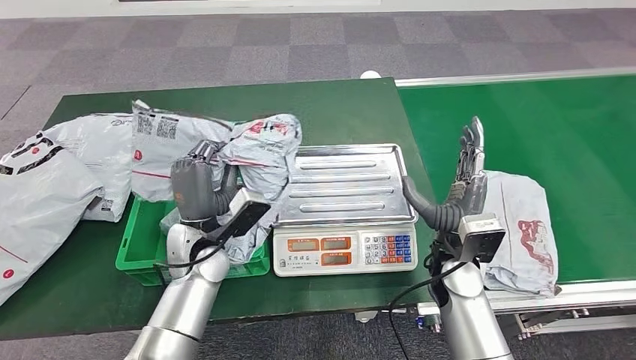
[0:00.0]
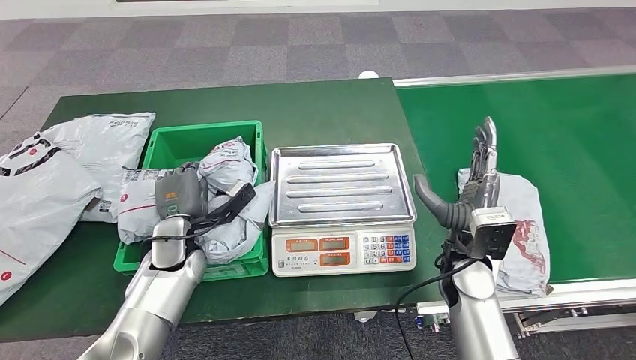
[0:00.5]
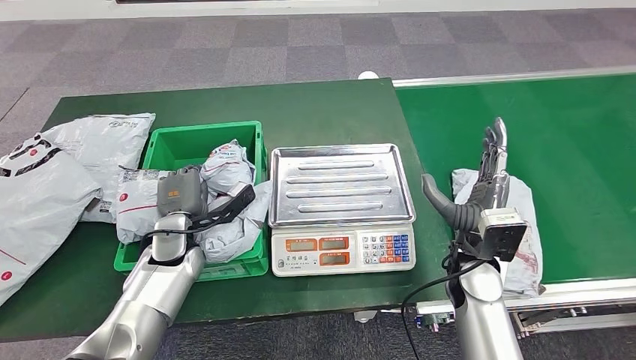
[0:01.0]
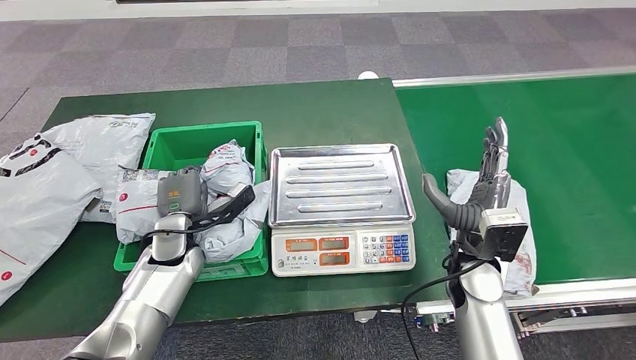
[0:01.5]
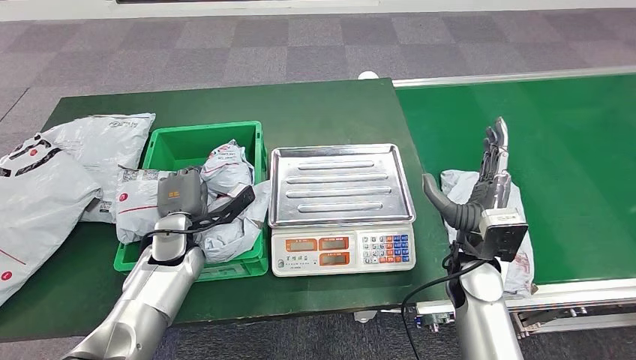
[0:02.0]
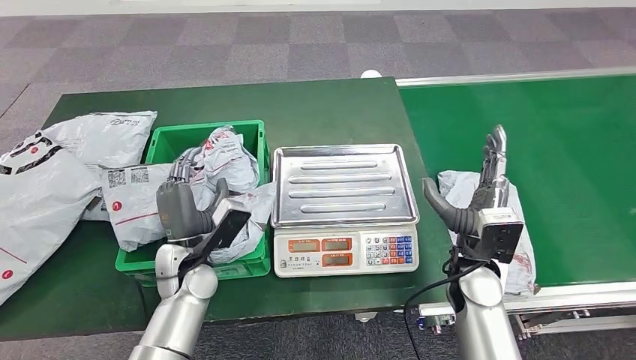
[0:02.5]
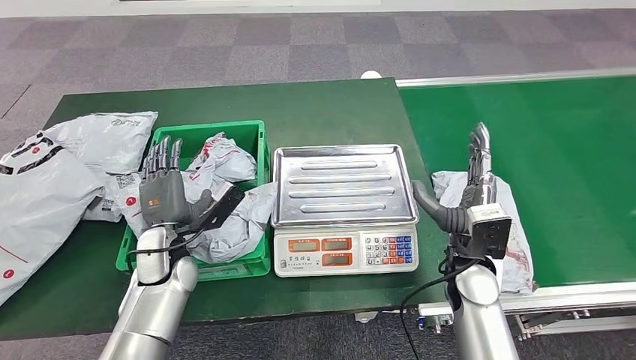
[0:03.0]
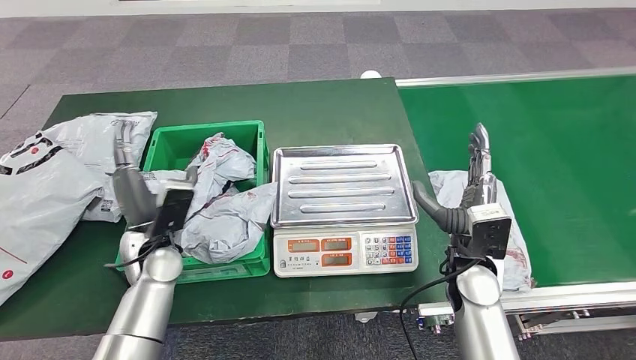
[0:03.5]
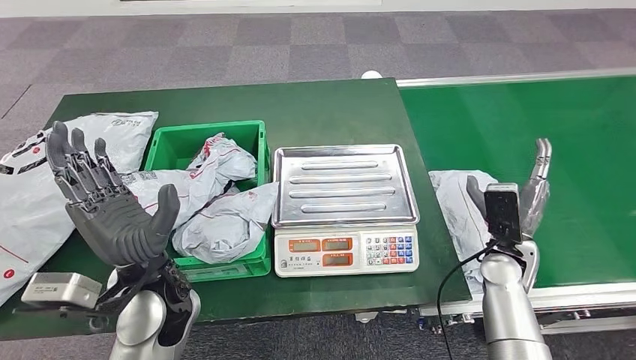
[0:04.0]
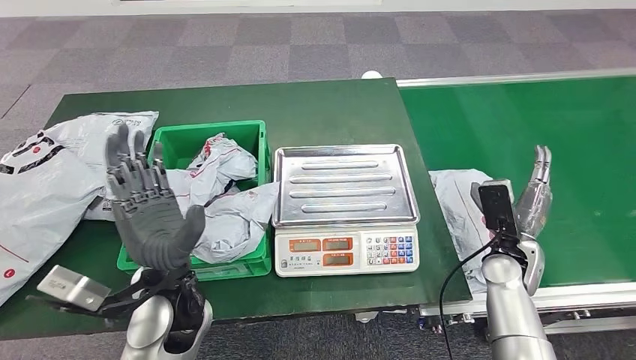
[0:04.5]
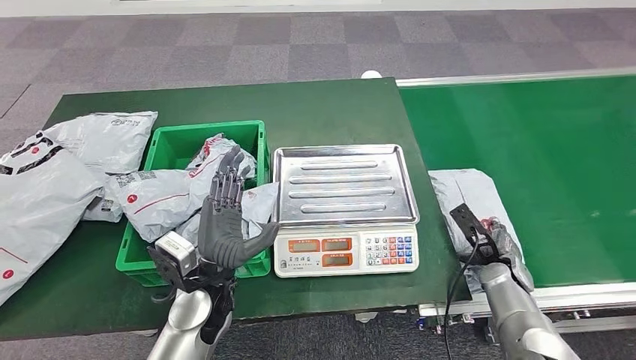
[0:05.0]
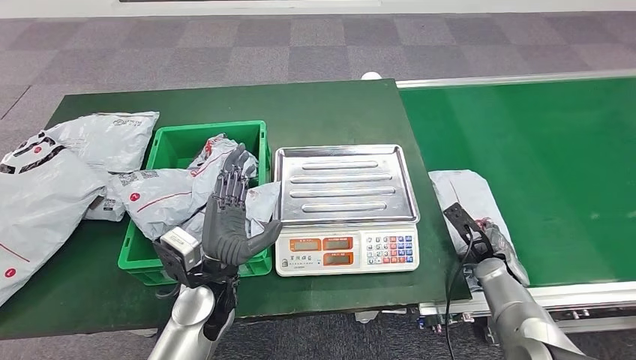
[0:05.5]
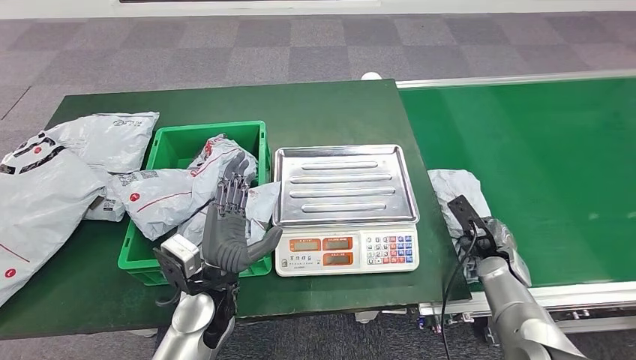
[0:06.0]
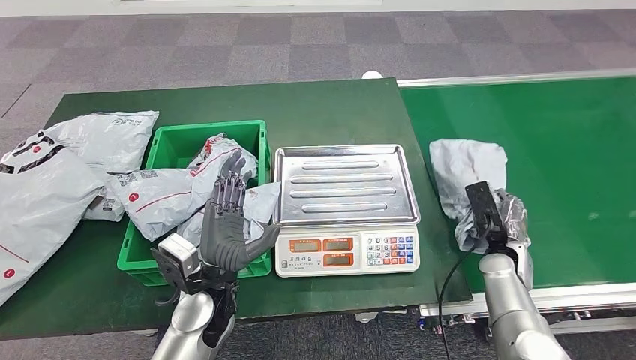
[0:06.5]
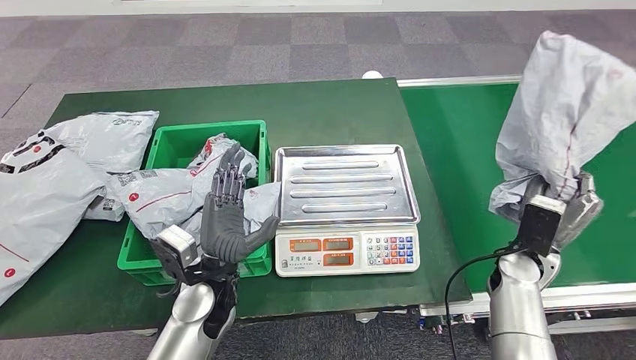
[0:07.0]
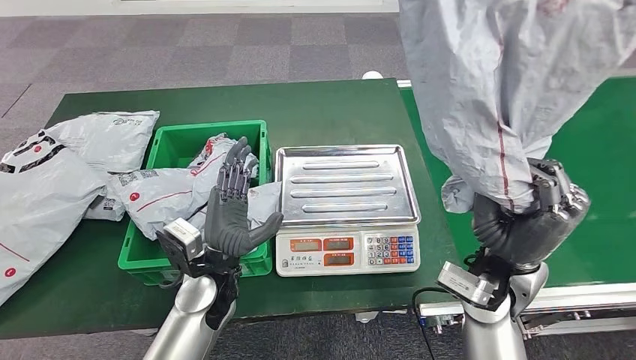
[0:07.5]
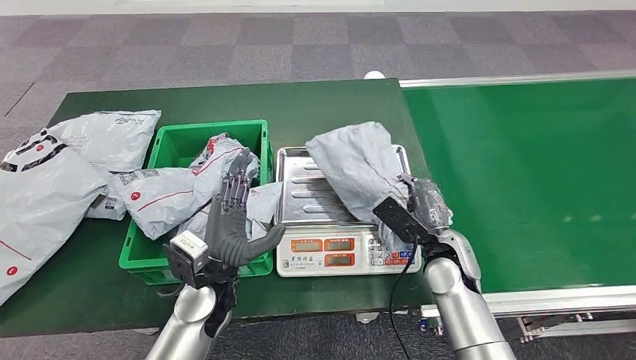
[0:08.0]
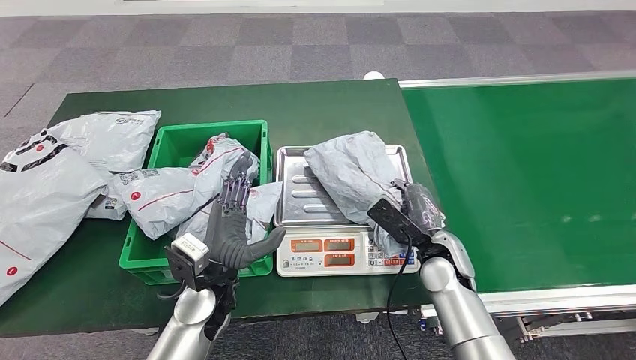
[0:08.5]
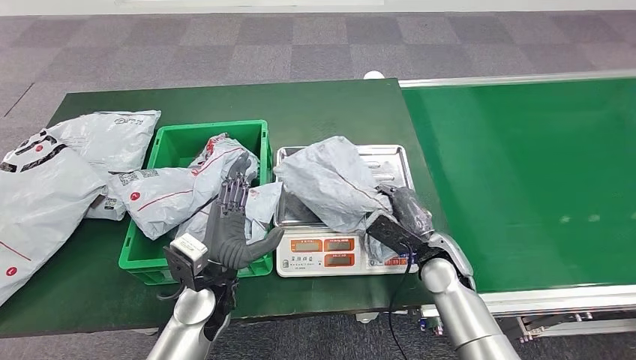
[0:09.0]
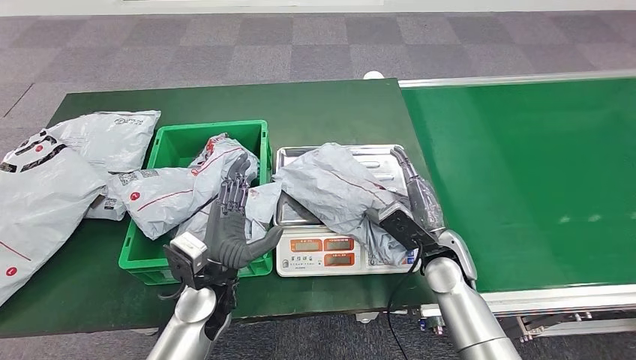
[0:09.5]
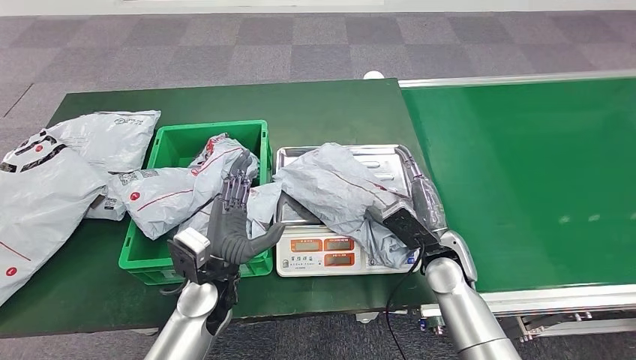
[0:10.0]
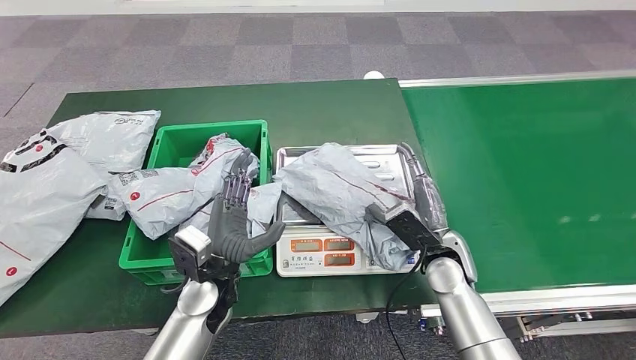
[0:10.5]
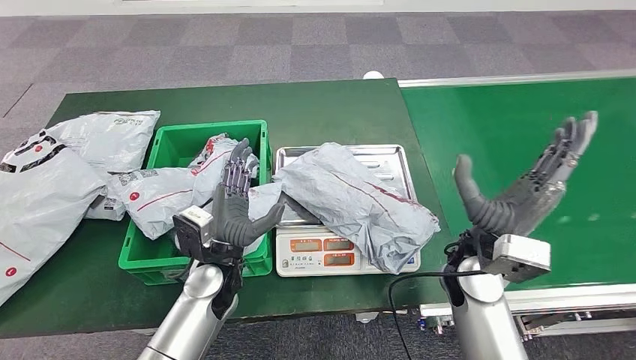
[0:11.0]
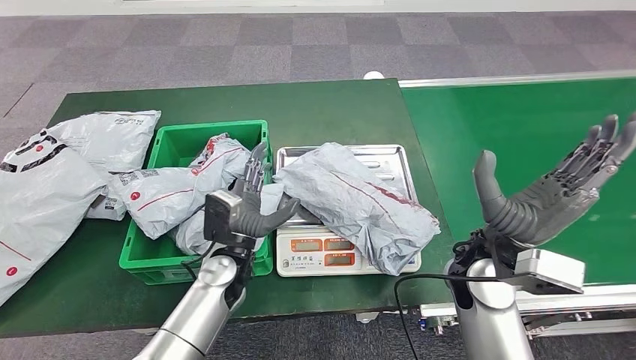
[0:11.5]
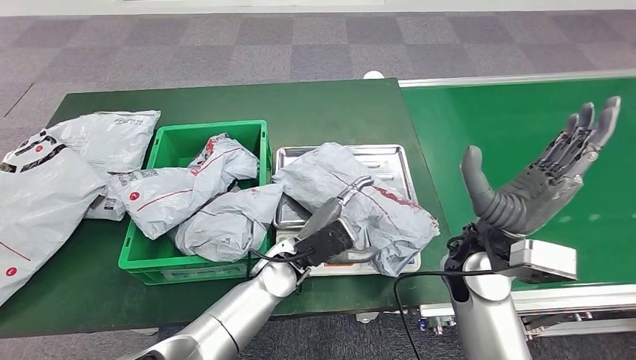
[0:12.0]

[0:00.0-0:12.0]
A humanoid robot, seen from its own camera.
Step, 0:00.0 to 0:03.0: Place the parcel into the delivery box.
Step, 0:06.0 to 0:07.0: Pick up the parcel from the conveyor belt.
Step, 0:07.5 to 0:10.5: Place the parcel onto the inbound machine.
0:08.0 to 0:10.0: The hands stay close to where they were, moving slightly.
0:10.0 to 0:12.0: The right hand is displaced upward by approximately 10 cm. The left hand is displaced to the right by some 10 cm.

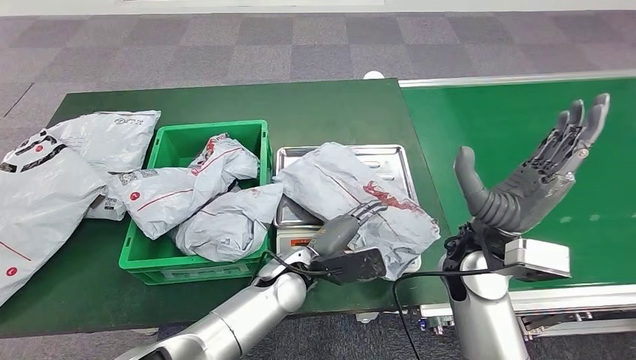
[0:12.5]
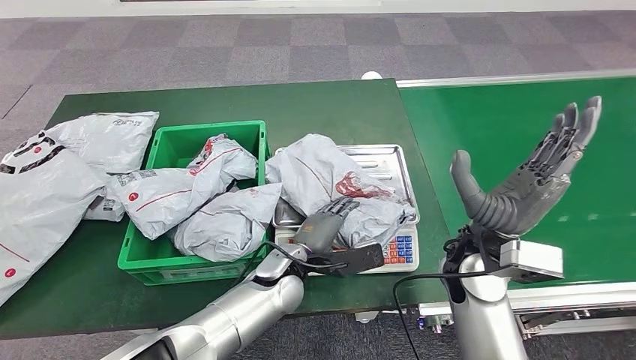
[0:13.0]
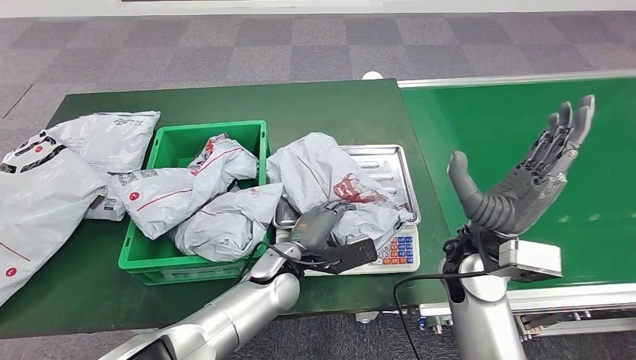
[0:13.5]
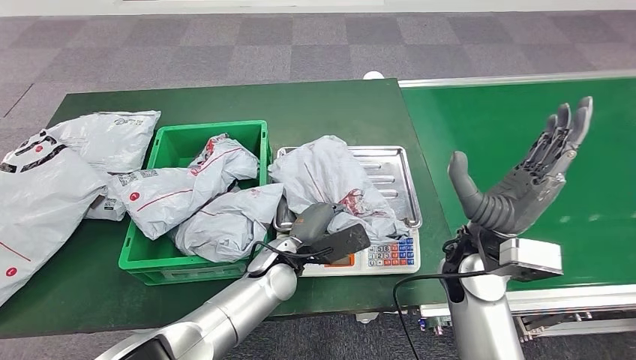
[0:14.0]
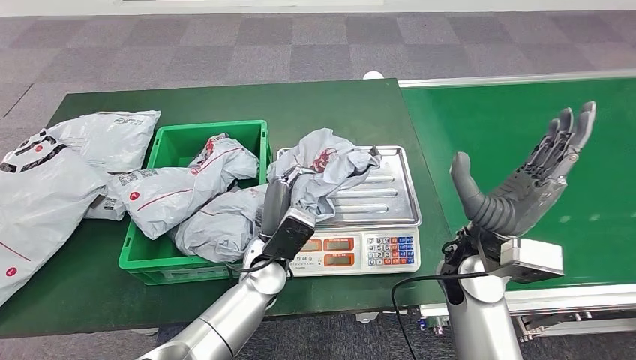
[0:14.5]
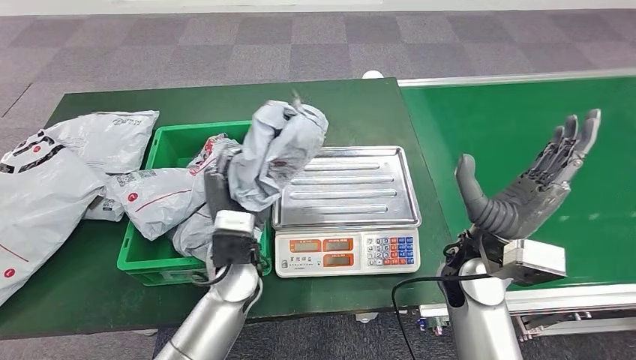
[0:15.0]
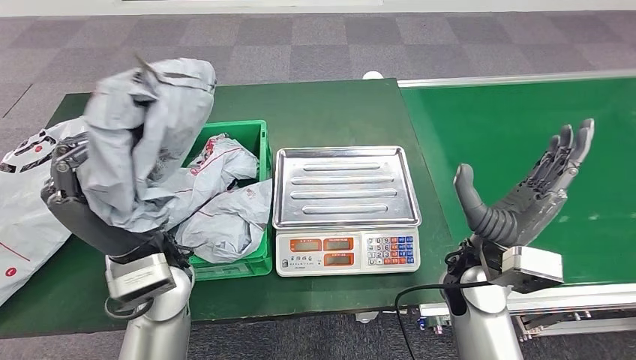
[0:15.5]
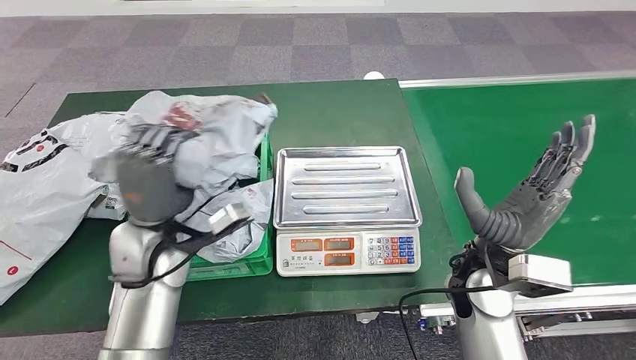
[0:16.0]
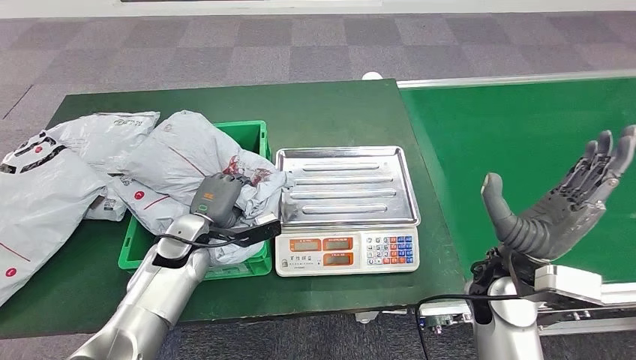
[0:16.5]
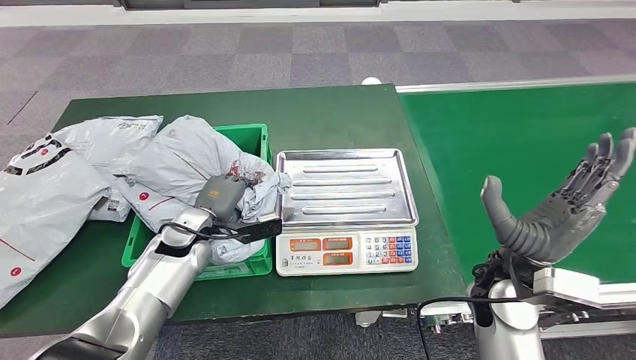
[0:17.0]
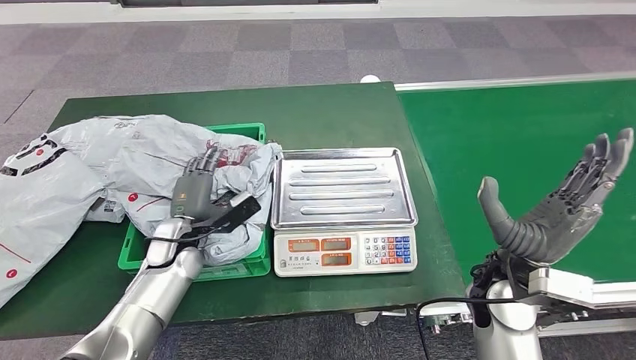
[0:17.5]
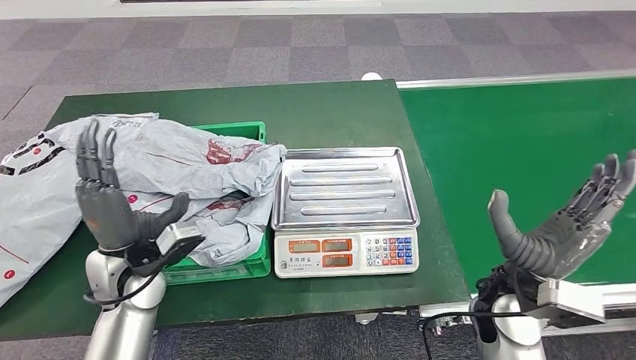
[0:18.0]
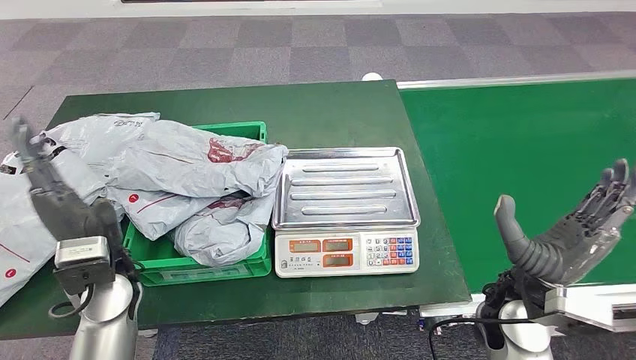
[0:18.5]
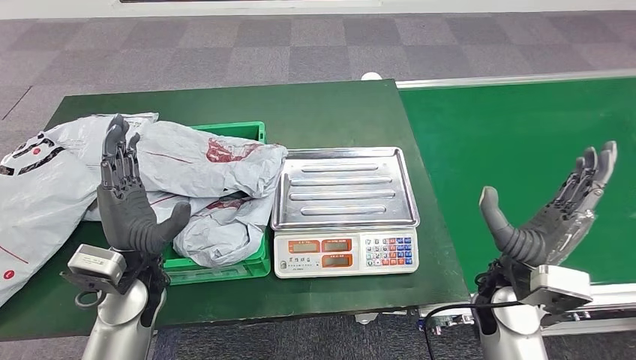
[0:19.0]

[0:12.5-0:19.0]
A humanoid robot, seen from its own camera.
Step, 0:12.5 to 0:15.0: Pick up the parcel from the inbound machine.
Step, 0:16.0 to 0:19.0: Place the parcel into the delivery box.
